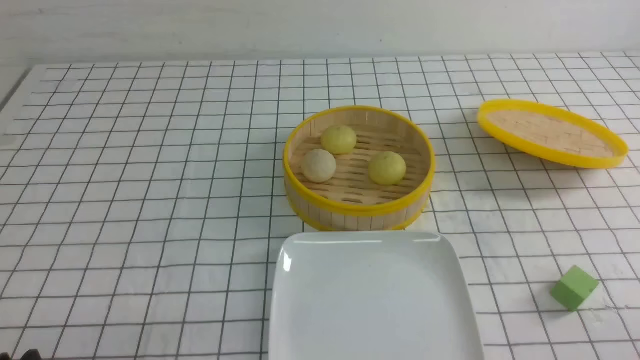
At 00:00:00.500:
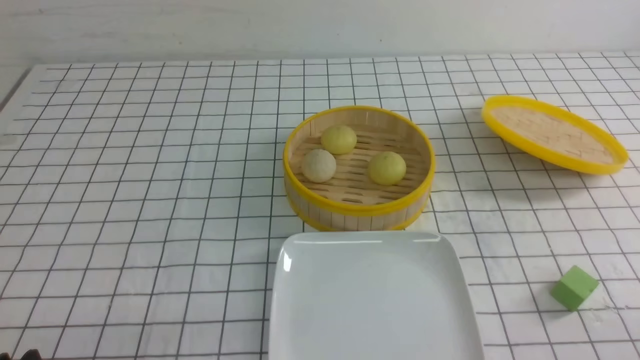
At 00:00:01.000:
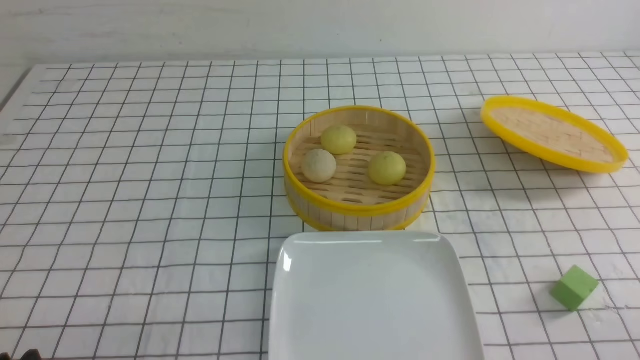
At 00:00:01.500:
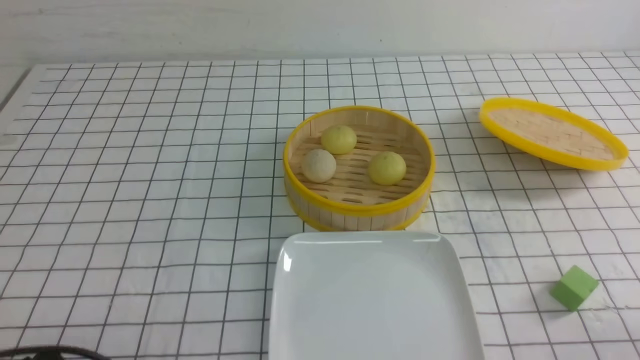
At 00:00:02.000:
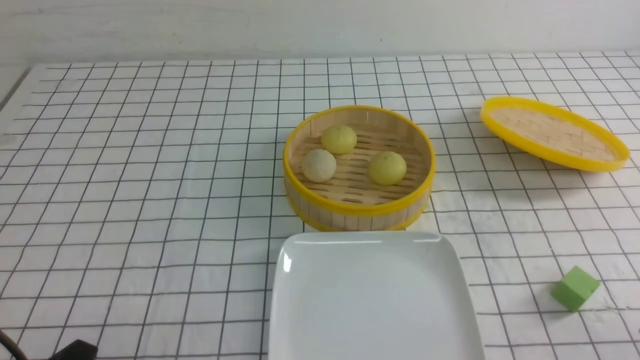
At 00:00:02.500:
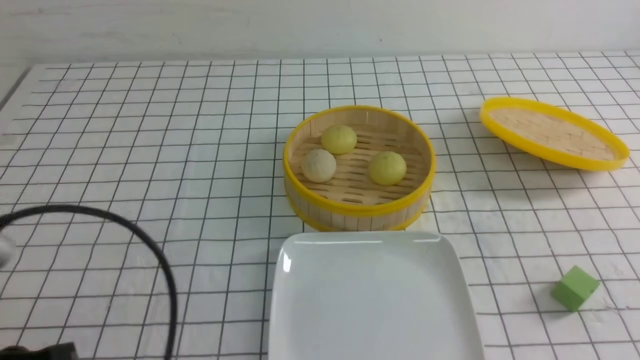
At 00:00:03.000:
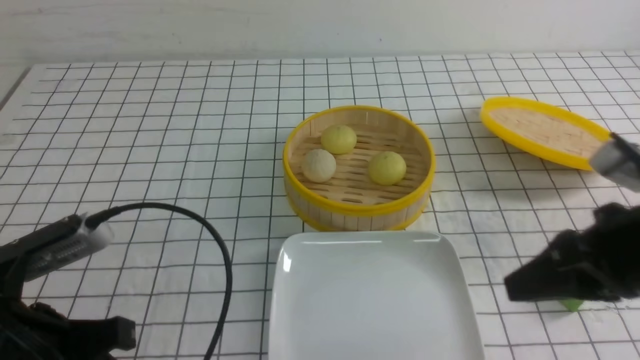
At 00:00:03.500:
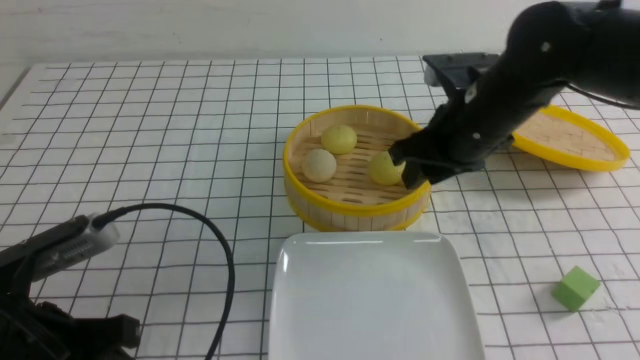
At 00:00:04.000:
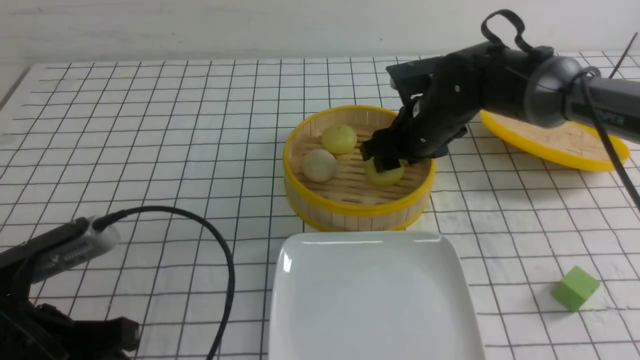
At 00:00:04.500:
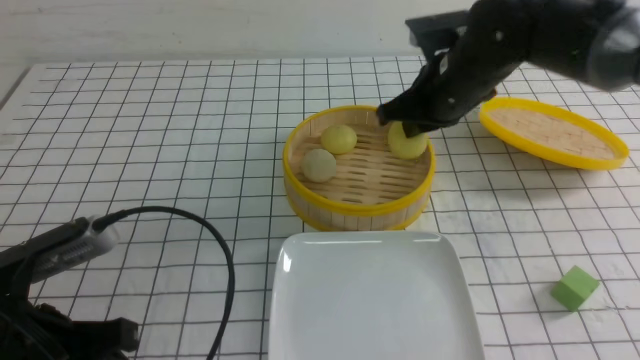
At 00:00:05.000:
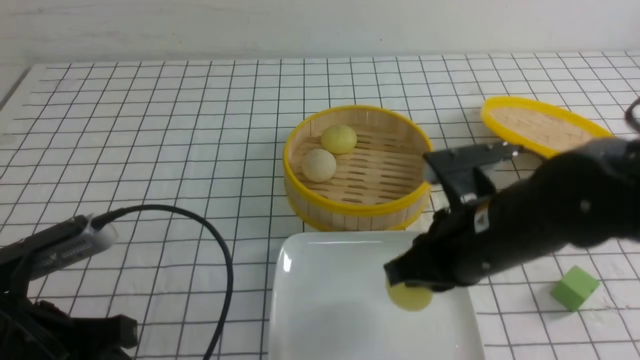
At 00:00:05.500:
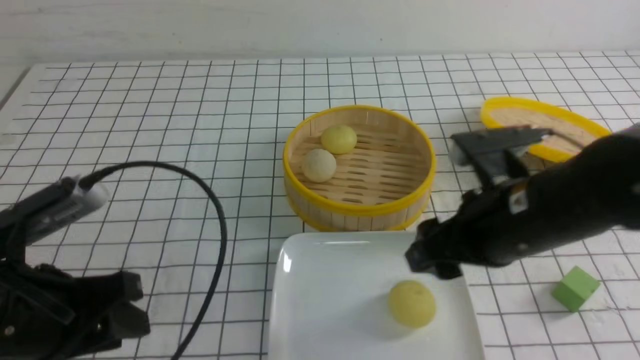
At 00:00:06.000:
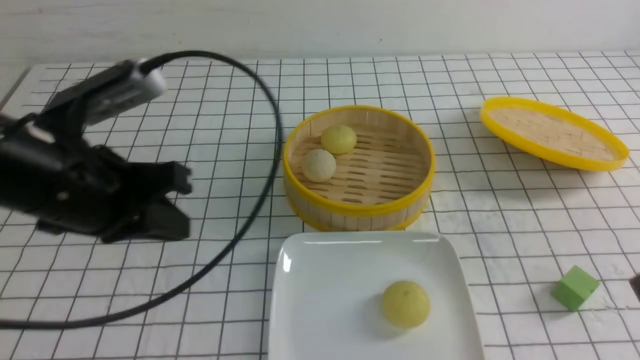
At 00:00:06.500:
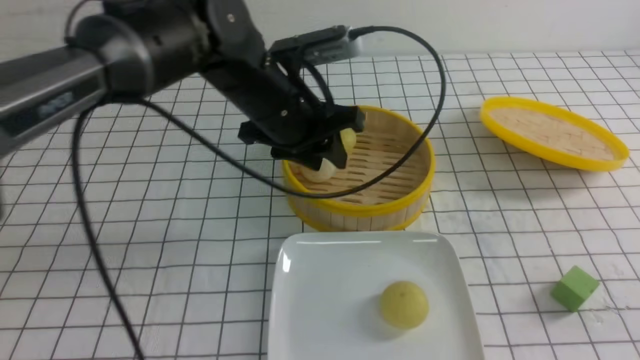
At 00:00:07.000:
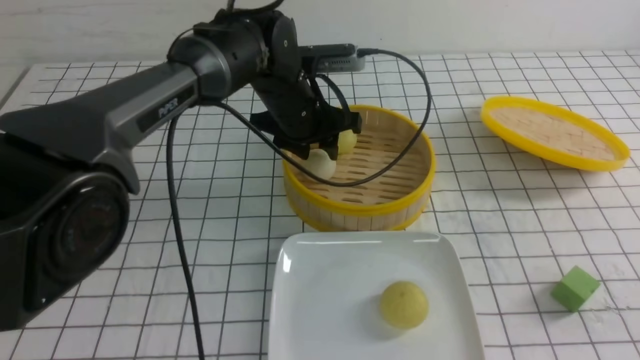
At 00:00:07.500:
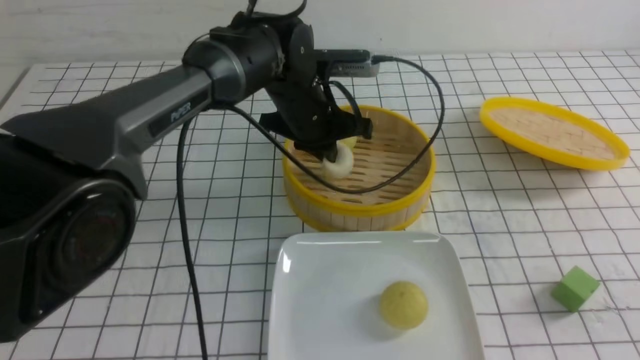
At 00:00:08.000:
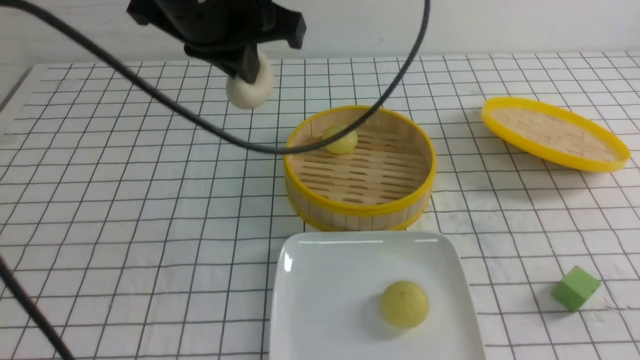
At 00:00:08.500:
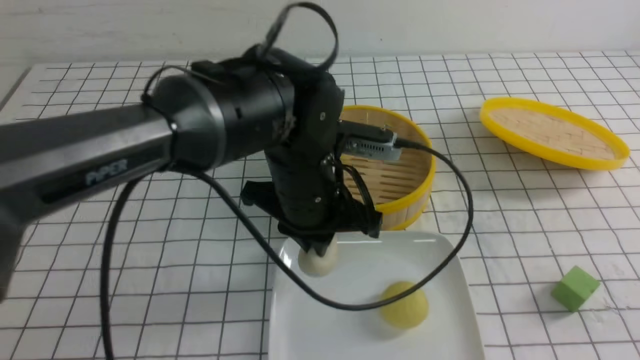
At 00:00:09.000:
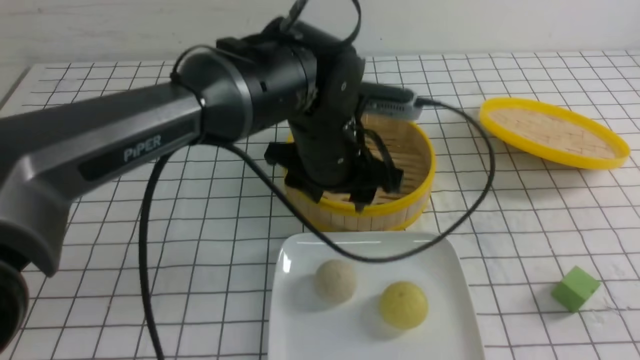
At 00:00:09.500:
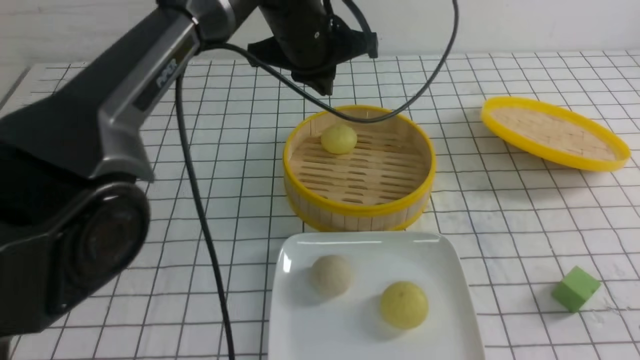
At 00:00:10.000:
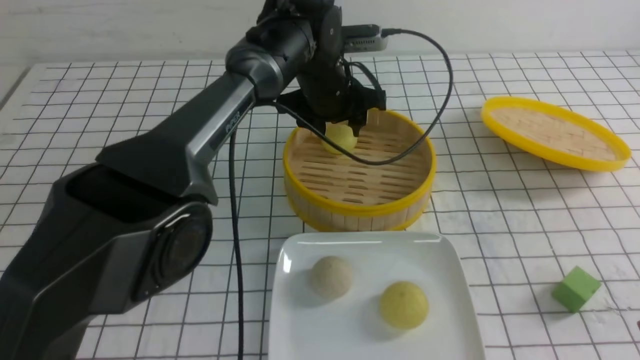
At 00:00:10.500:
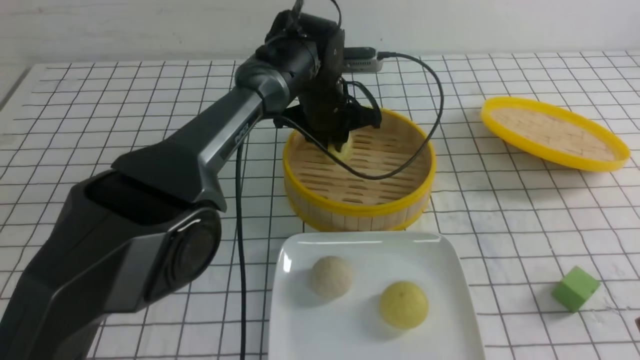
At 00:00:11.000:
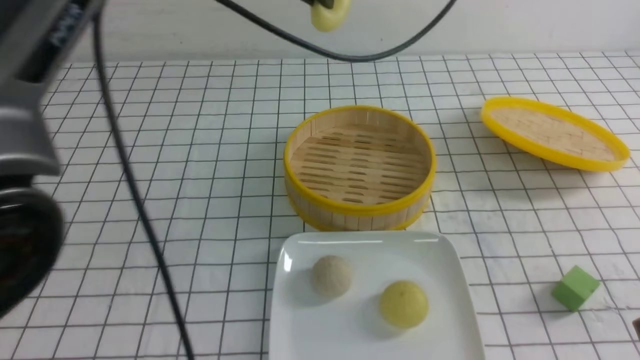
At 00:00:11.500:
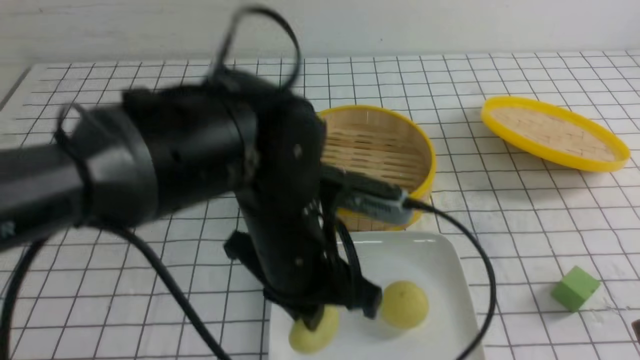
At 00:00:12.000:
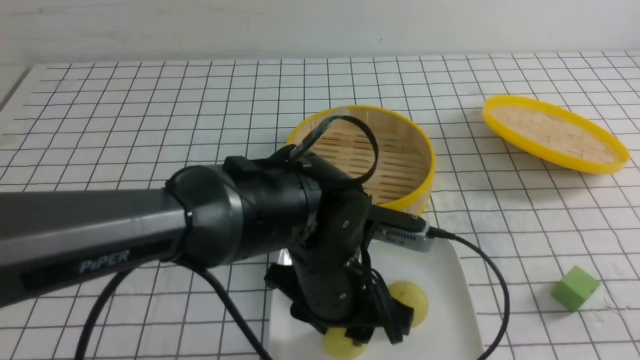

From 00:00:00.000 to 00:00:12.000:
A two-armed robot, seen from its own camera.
Step, from 00:00:00.000 to 00:00:04.000: use the right arm to grab the steamed stuffed bun that is closest to it.
Step, from 00:00:04.500 to 00:00:05.500: use the right arm to put the steamed stuffed bun into the plate.
Step, from 00:00:06.000 to 00:00:07.500: use the left arm to grab the steamed stuffed bun that is closest to it.
Step, from 00:00:08.000 to 00:00:08.500: use the left arm to put the steamed stuffed bun into the plate.
Step, from 00:00:09.000 to 00:00:10.500: use the left arm to grab the steamed stuffed bun that is closest to it.
From 00:00:02.000 to 00:00:04.000: The right gripper shifts about 40 cm forward and to the left, and opens up, while the left gripper is displaced forward by roughly 10 cm, and closes, then opens again.
From 00:00:04.000 to 00:00:06.000: The right gripper heads backward and to the right, covering roughly 30 cm, and closes its fingers; the left gripper moves forward, upward and to the right, roughly 15 cm, and closes up.
From 00:00:06.000 to 00:00:08.000: The left gripper heads to the right, forward and upward, covering some 15 cm, and opens and closes again. Meanwhile the right gripper ends up about 5 cm from where it was.
From 00:00:08.000 to 00:00:10.000: The left gripper goes approximately 20 cm forward, downward and to the right, and opens.
From 00:00:10.000 to 00:00:12.000: The left gripper moves backward, approximately 25 cm, and closes, then reopens.

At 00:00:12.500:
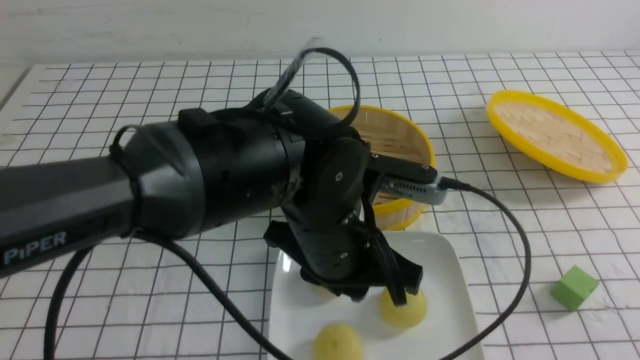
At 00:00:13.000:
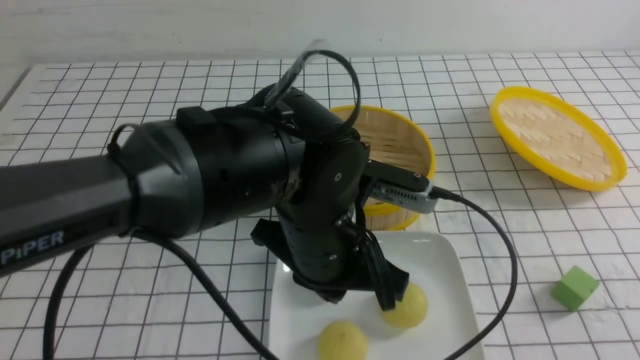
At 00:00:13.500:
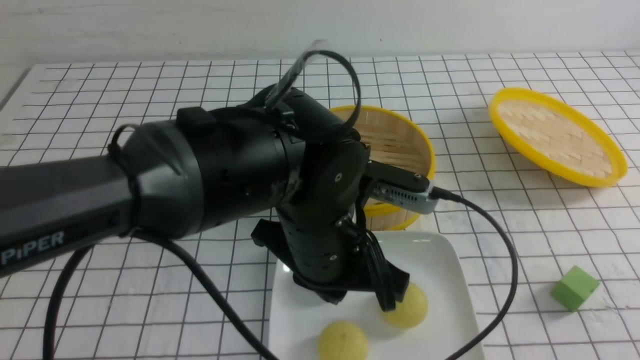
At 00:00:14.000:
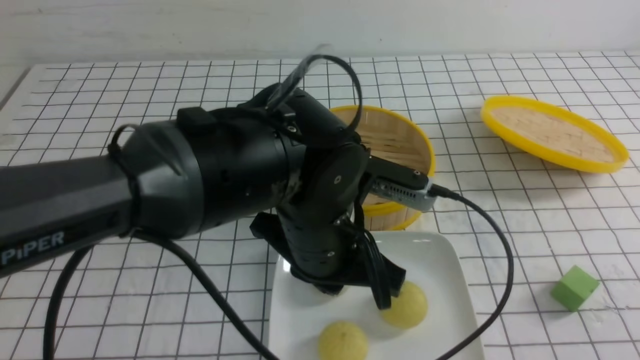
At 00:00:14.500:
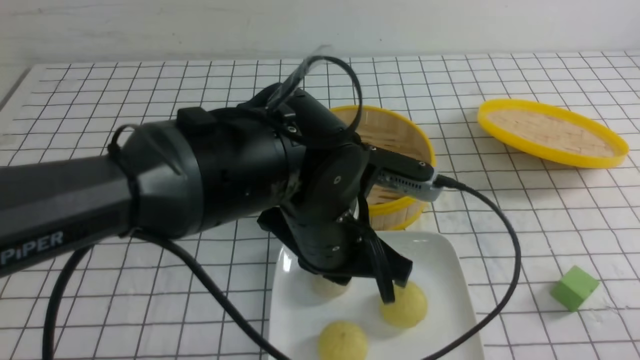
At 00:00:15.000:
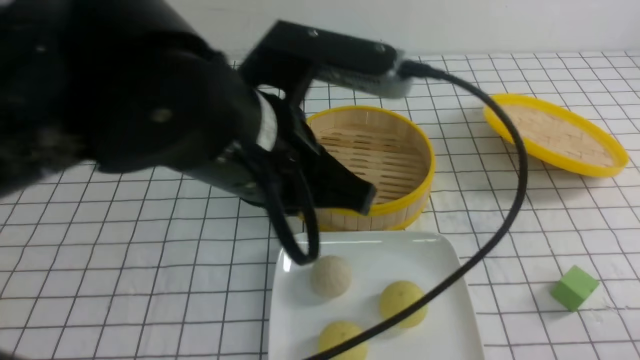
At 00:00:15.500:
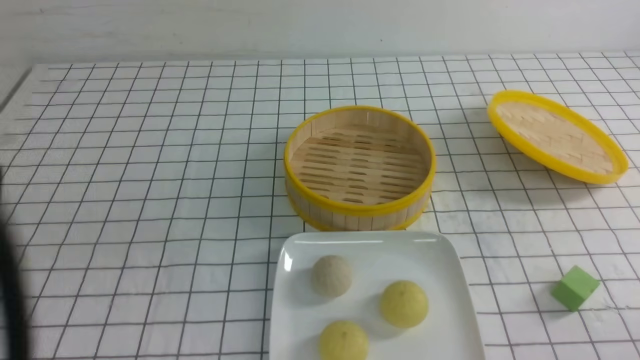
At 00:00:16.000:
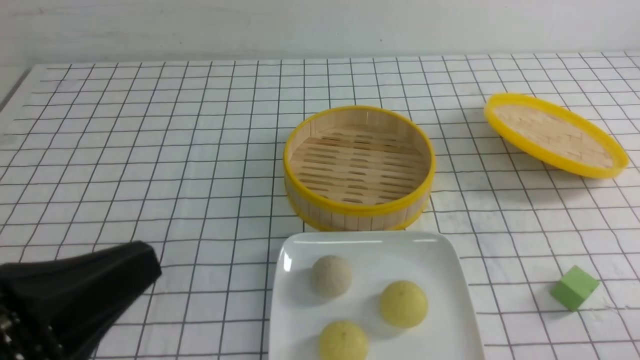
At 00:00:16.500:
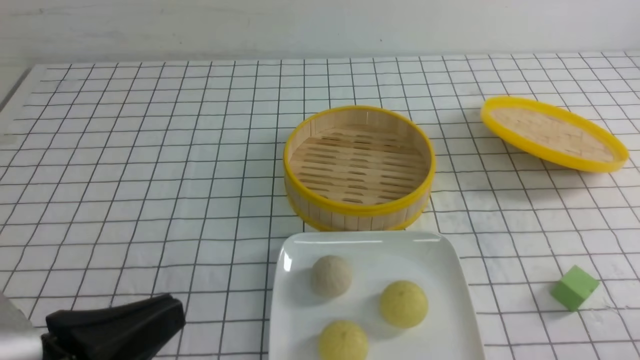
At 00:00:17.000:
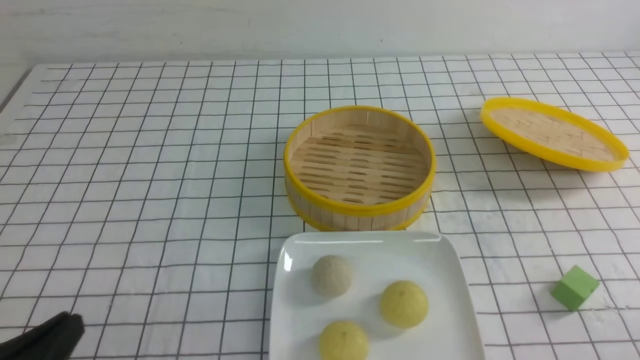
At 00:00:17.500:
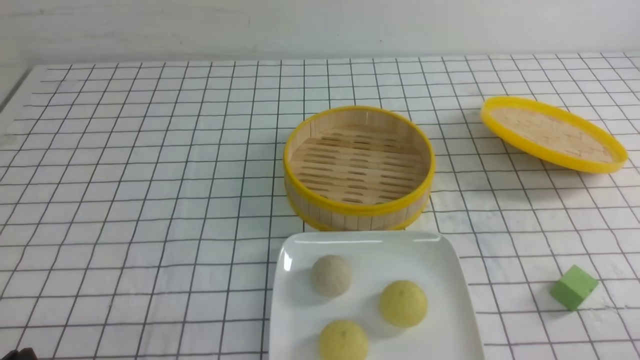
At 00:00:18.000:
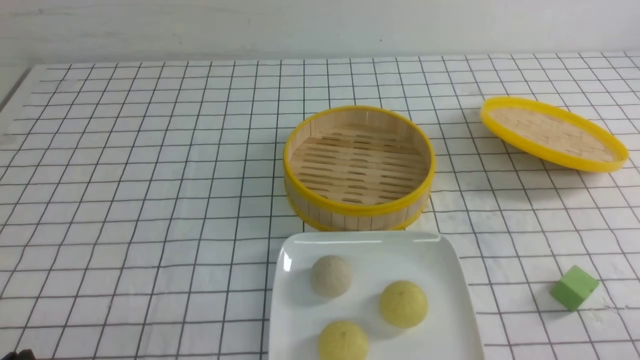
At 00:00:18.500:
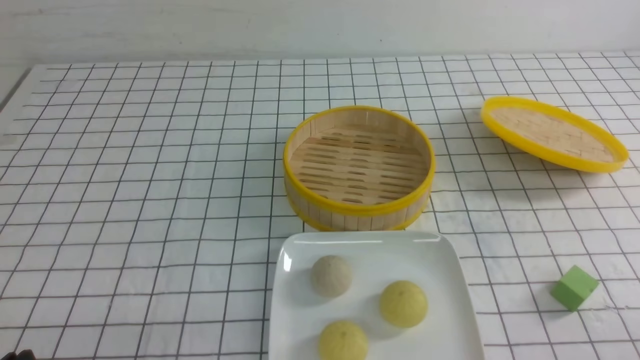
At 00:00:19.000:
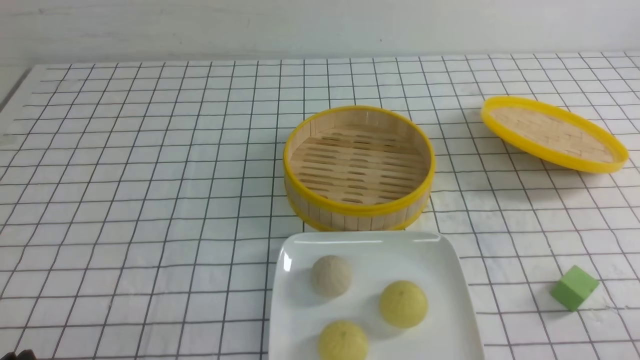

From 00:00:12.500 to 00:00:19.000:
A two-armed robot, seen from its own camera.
From 00:00:12.500 to 00:00:14.500: The right gripper travels downward by some 10 cm.
From 00:00:14.500 to 00:00:17.000: The left gripper shifts approximately 30 cm to the left and backward.
From 00:00:17.000 to 00:00:19.000: The grippers stay close to where they were, moving slightly.
